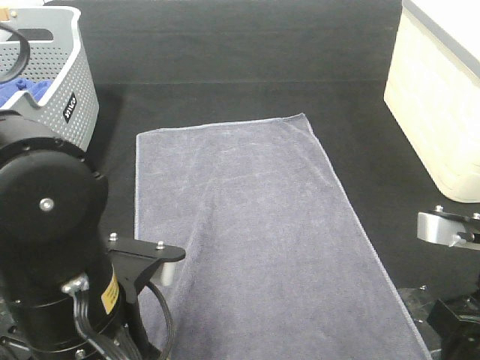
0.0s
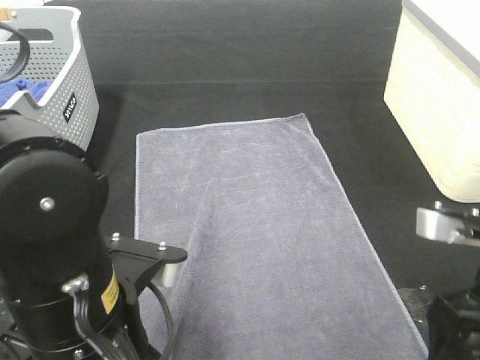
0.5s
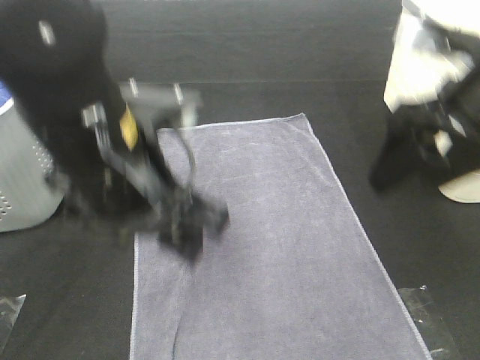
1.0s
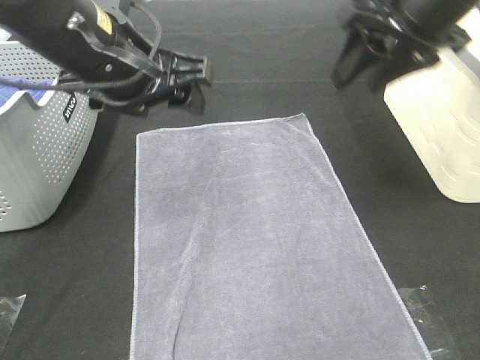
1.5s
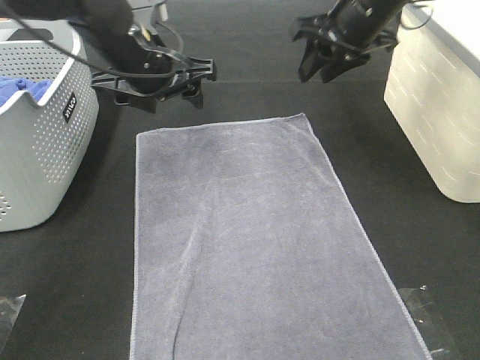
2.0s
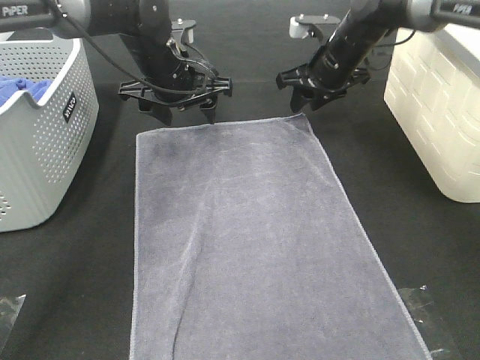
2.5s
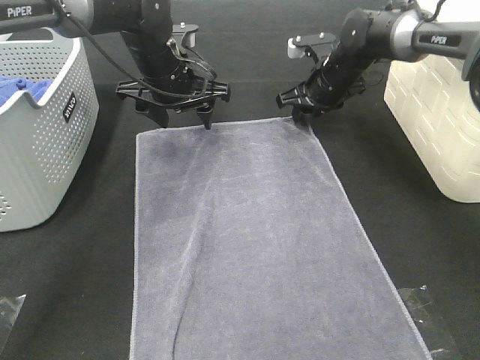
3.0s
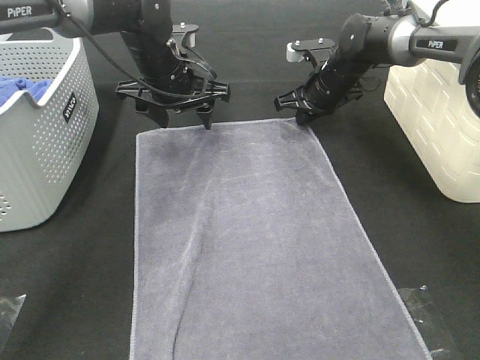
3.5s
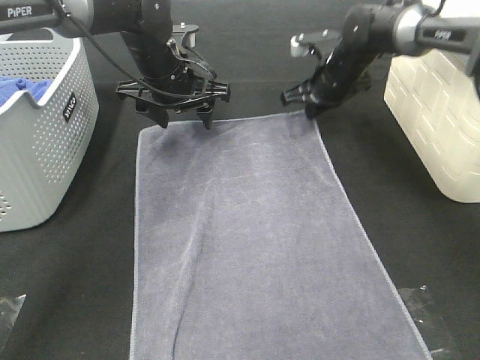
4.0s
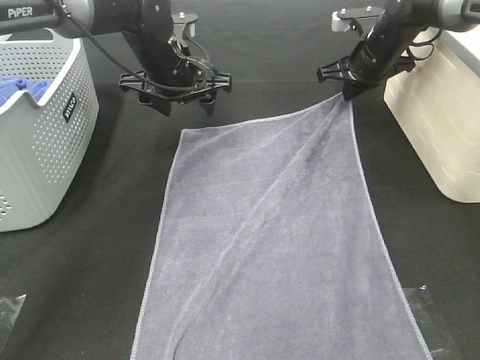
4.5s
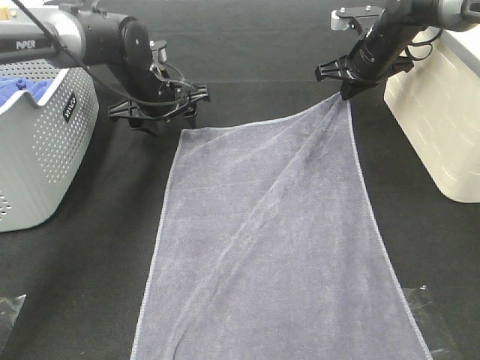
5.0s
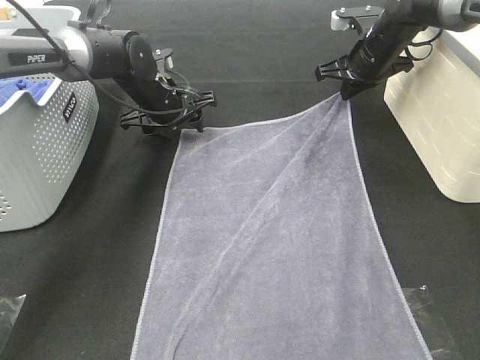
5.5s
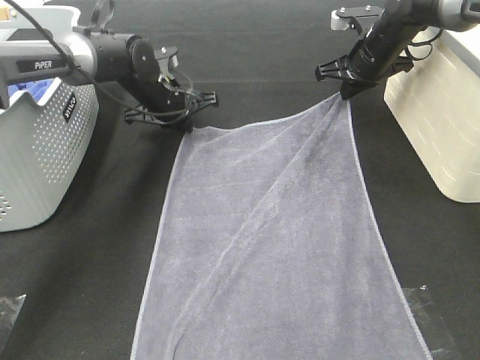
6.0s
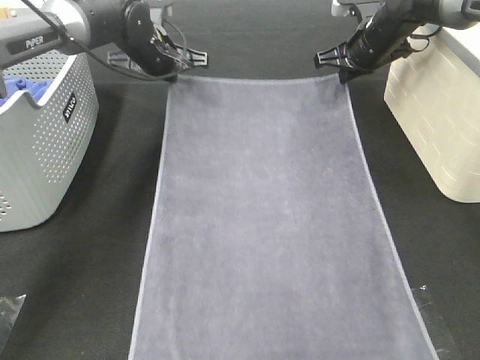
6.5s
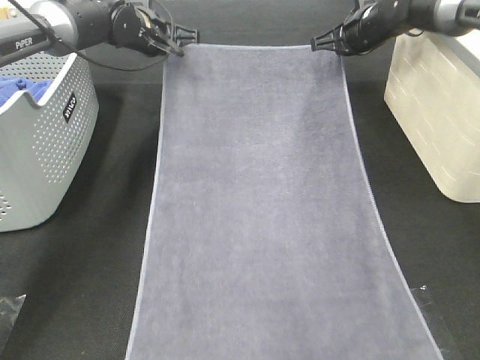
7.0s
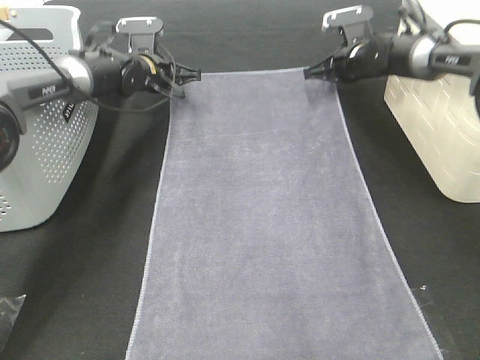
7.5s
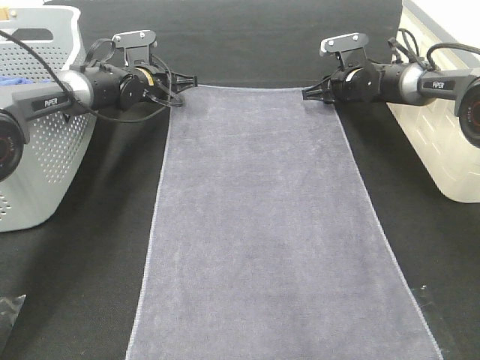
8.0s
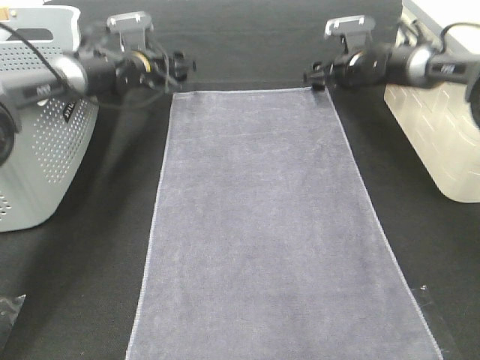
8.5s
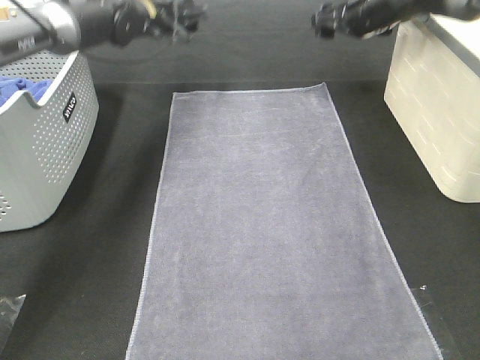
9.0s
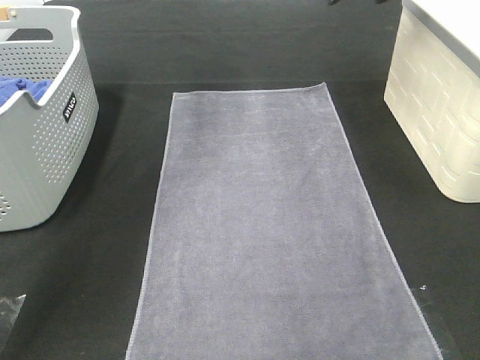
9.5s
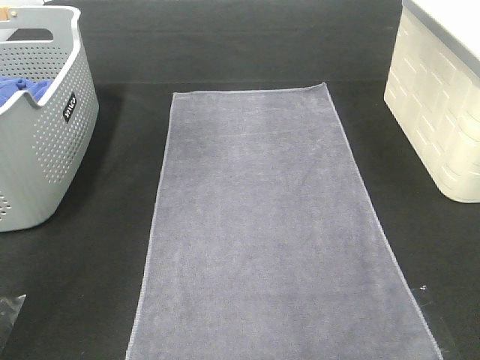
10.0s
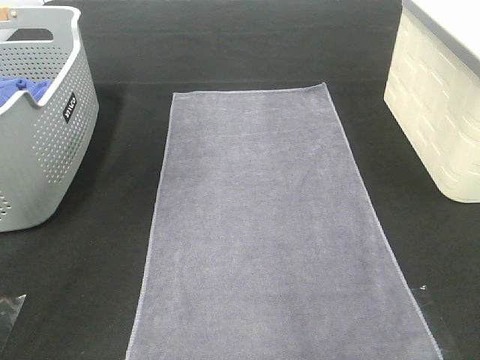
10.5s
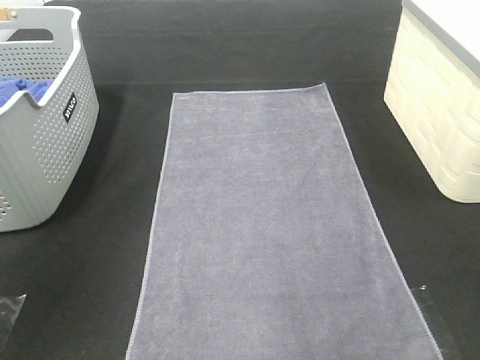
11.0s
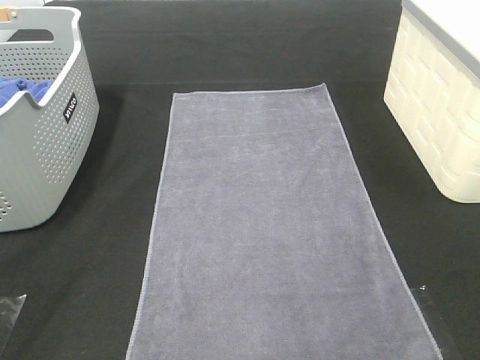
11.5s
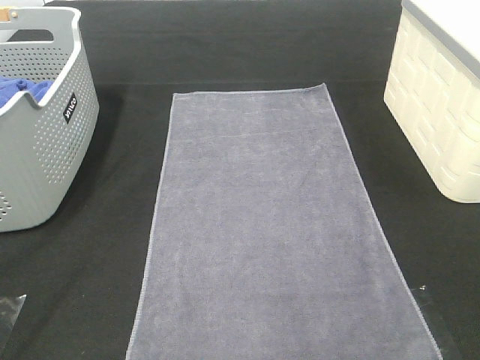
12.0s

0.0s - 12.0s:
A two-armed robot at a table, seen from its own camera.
Task of the whole recording: Remove the towel and place it.
Step, 0.0s - 2.0s: Left hand:adjust the gray towel.
Step, 0.0s - 2.0s: Right hand:adjust the gray towel.
0.0s - 2.0s: The two grippers go about 30 cm forward.
2.0s - 4.0s: The right gripper is displaced downward and forward by approximately 15 cm, and closes, while the left gripper changes place by roughly 5 cm.
4.0s - 6.0s: The right gripper shifts by some 5 cm, while the left gripper shifts roughly 10 cm downward and forward, and closes up.
6.0s - 8.0s: The right gripper is displaced downward by about 10 cm, and opens; the left gripper heads forward, covering roughly 5 cm, reaches approximately 5 cm upward, then returns, and opens its fingers.
8.0s - 10.0s: The grippers both shift upward and backward by about 35 cm. The left gripper opens its fingers.
10.0s - 12.0s: The grippers both shift backward by some 40 cm.

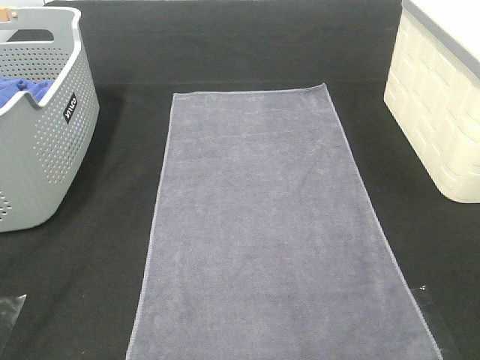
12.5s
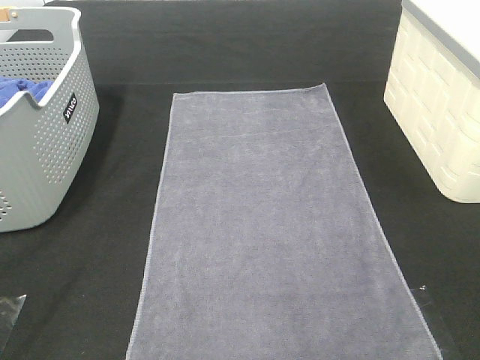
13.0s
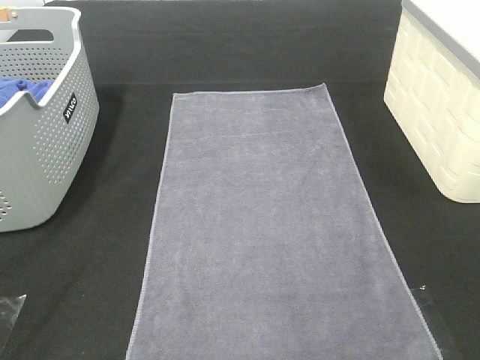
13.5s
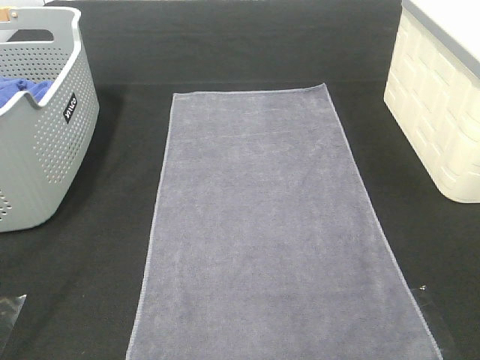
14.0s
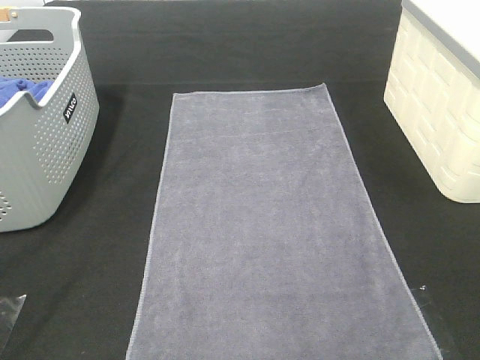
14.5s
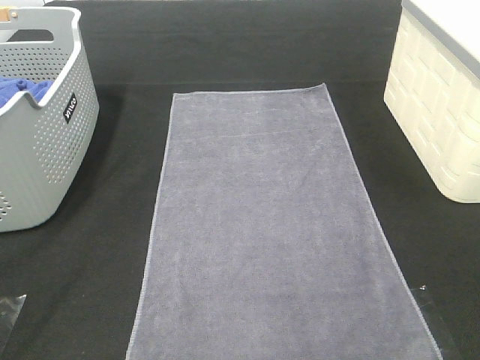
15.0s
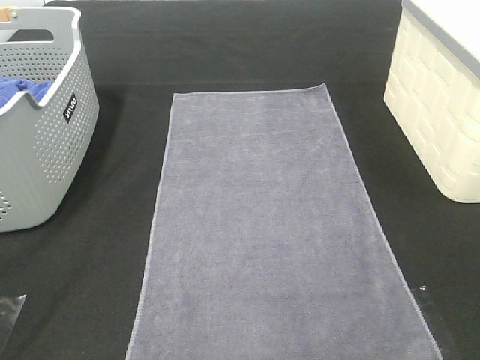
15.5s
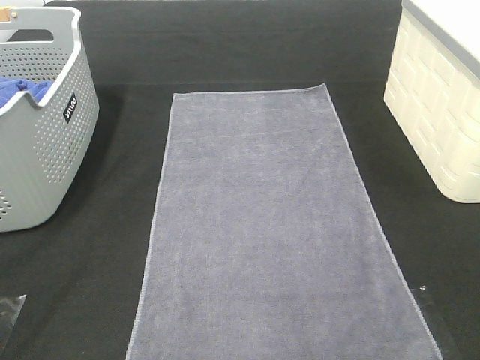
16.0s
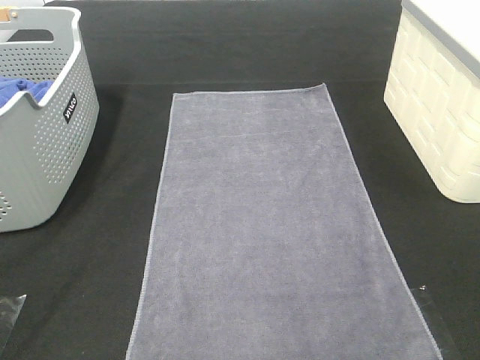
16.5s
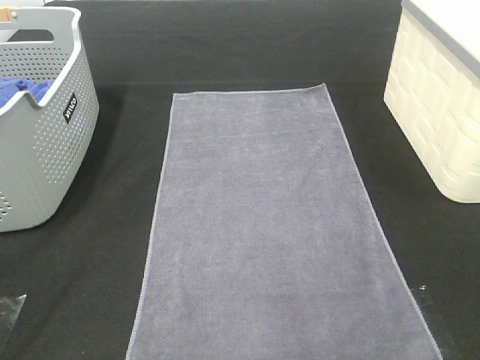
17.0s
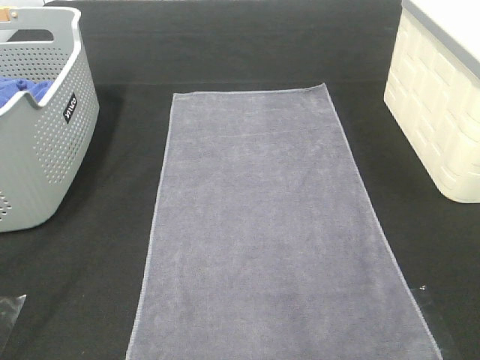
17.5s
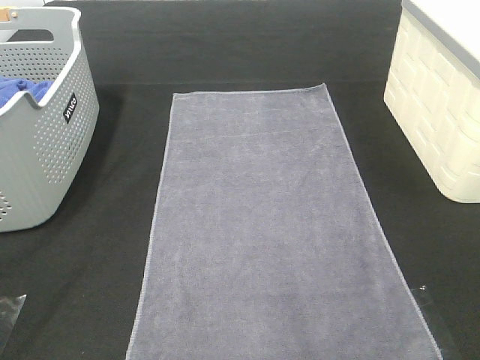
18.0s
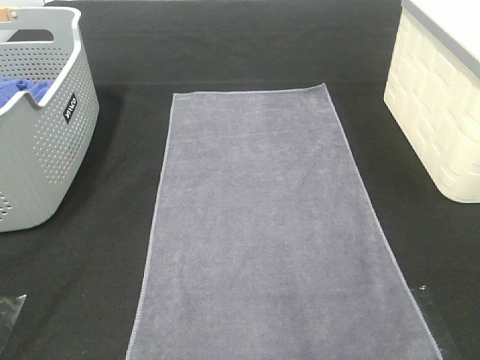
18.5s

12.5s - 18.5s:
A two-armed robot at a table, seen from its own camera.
Task of the whole recording: Remove the towel and place it.
14.5s - 16.5s: Both grippers stay put.

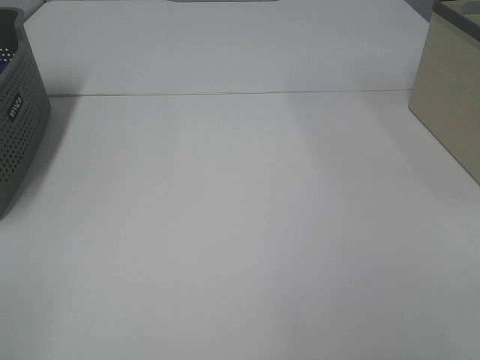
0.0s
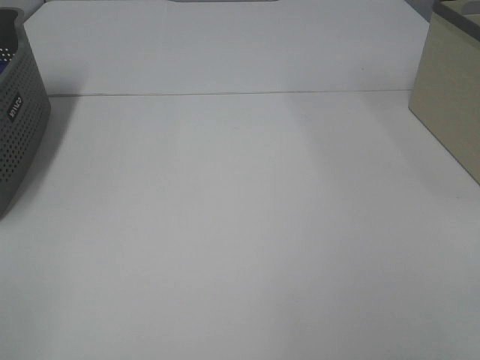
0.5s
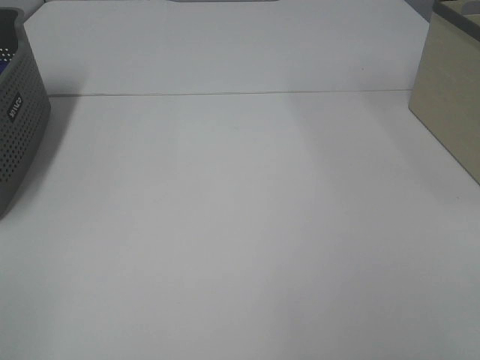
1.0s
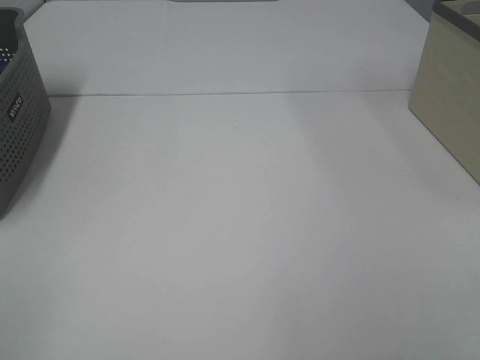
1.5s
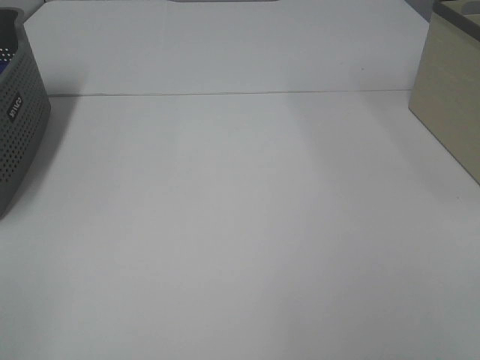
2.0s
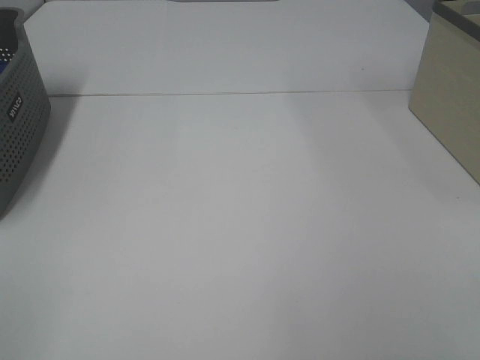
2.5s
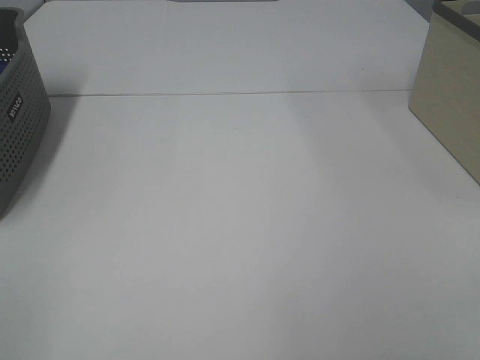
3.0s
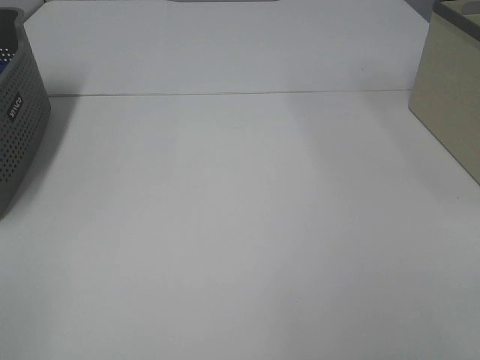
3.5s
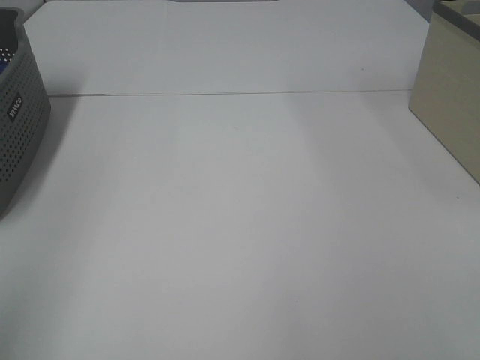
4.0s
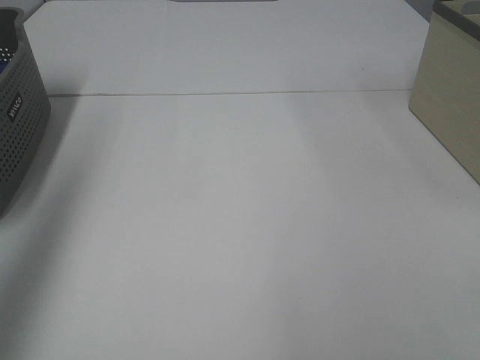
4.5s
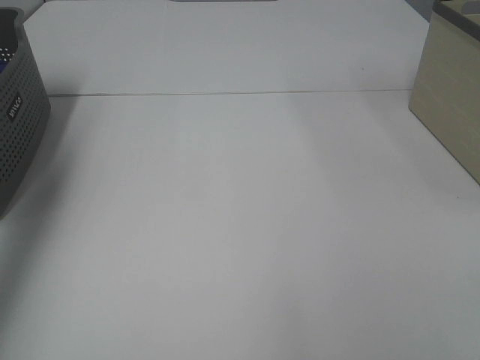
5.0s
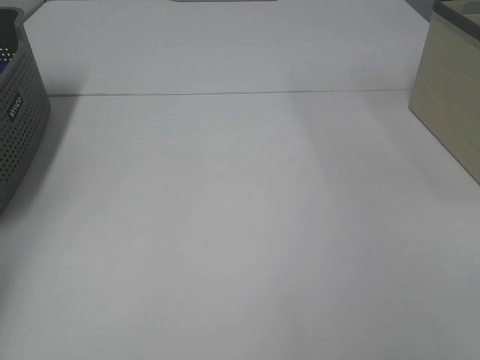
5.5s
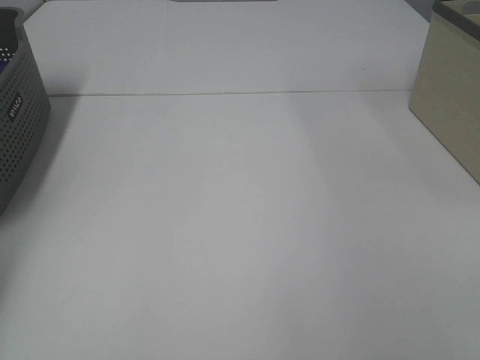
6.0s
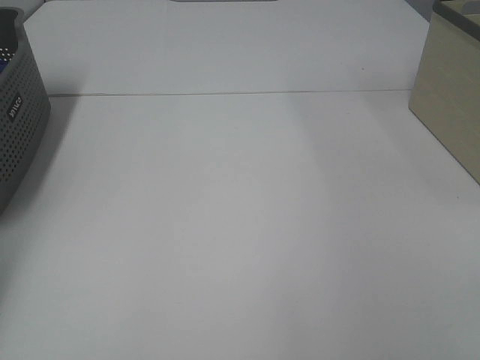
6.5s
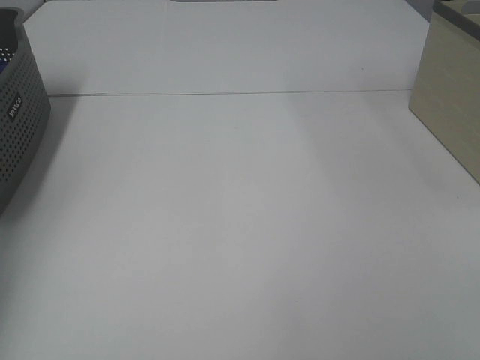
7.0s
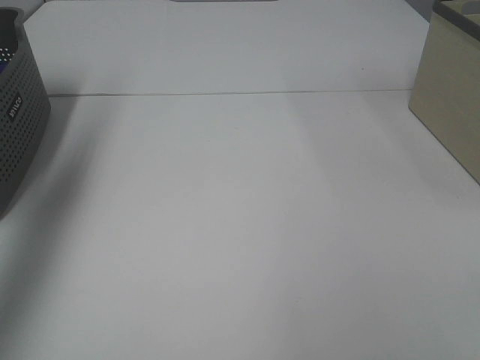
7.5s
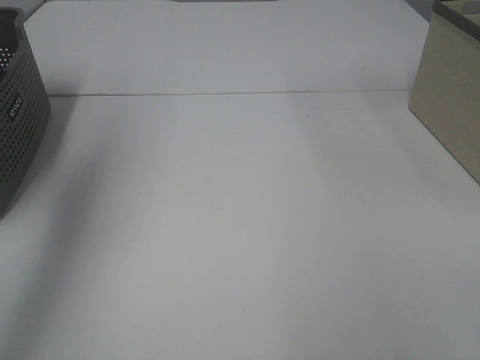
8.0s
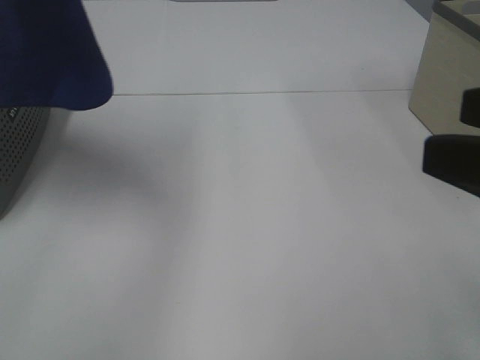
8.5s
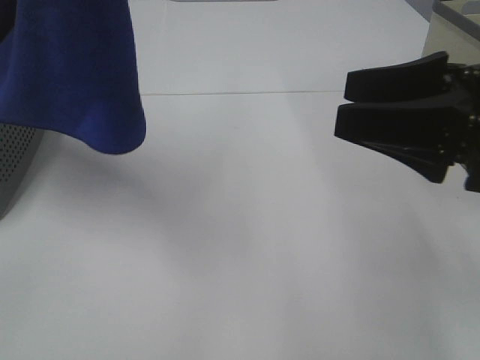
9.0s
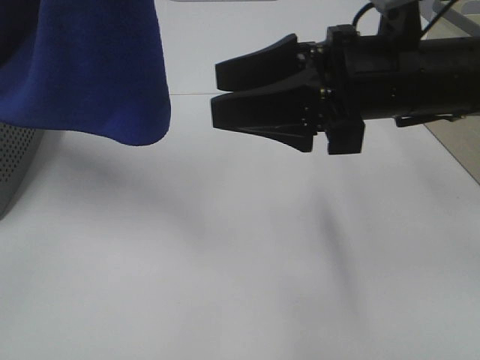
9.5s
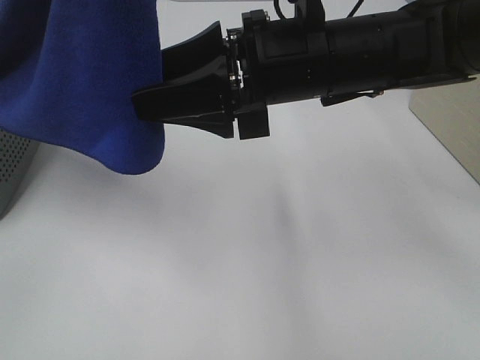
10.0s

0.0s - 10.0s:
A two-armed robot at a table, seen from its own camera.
Task of the whole recording: Remove the towel and place it.
0.0s - 2.0s: Neither gripper changes place.
4.0s - 6.0s: The left gripper goes about 40 cm forward, downward and to the left, and closes up.
6.0s - 8.0s: The left gripper goes roughly 40 cm upward, to the right and backward, and closes its fingers.
8.0s - 10.0s: The right gripper is displaced forward and to the left by about 35 cm, while the left gripper shifts approximately 20 cm to the right and backward.
